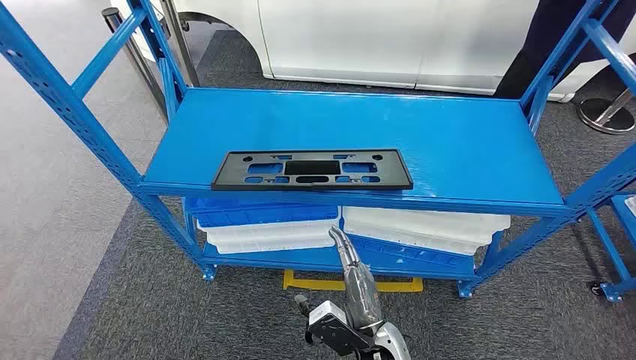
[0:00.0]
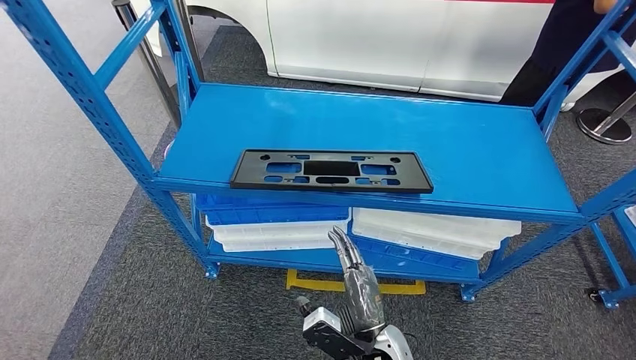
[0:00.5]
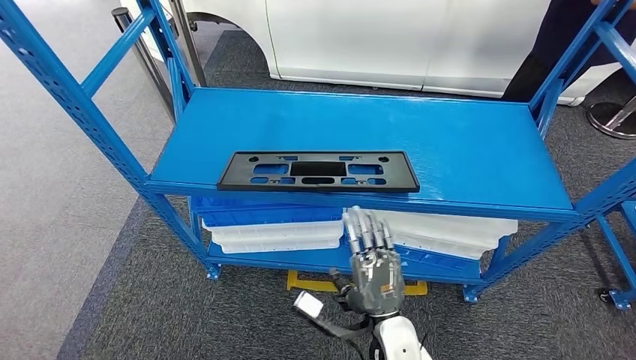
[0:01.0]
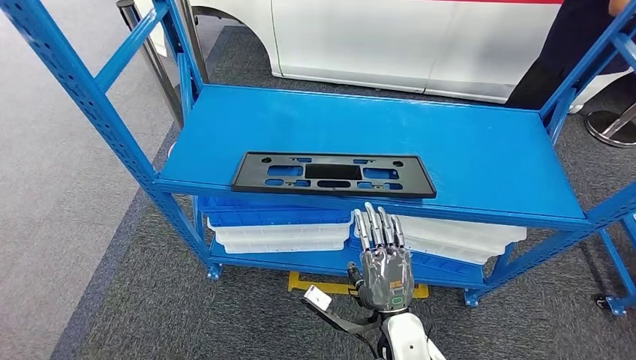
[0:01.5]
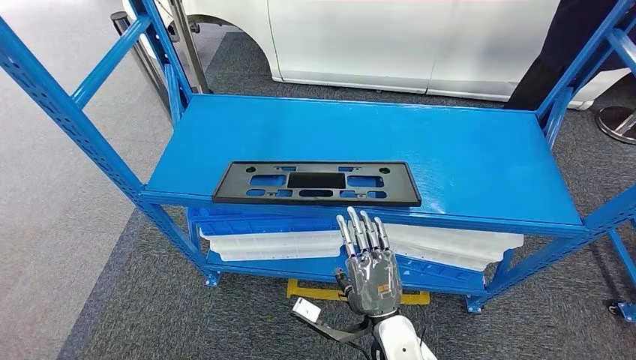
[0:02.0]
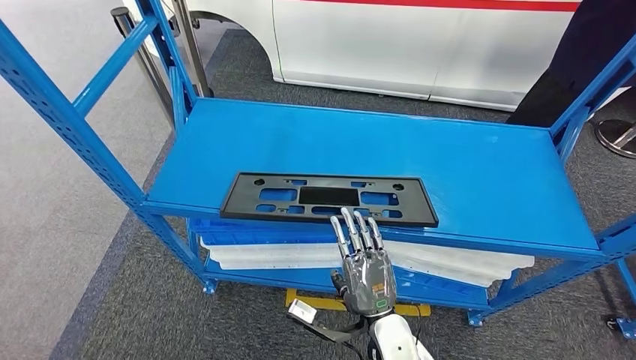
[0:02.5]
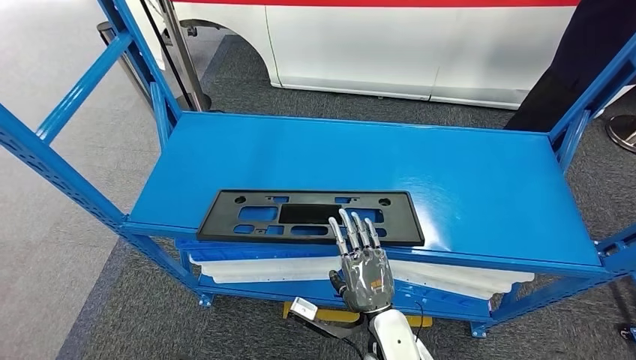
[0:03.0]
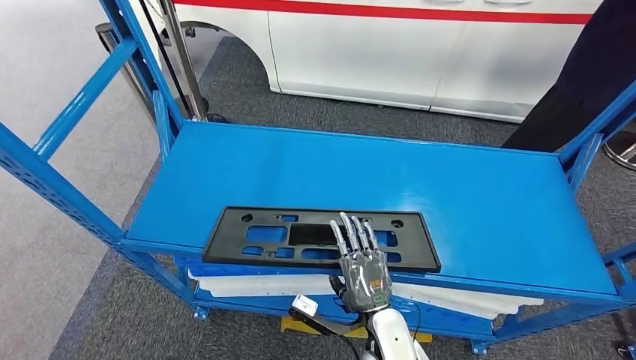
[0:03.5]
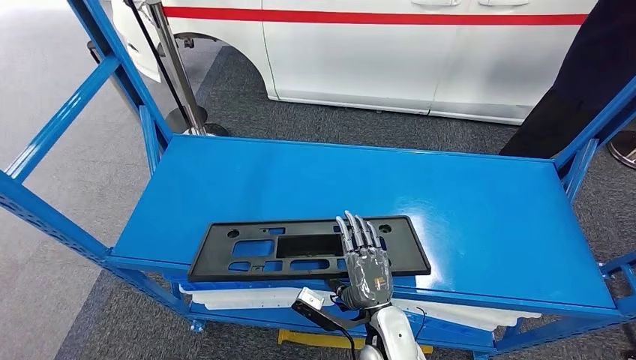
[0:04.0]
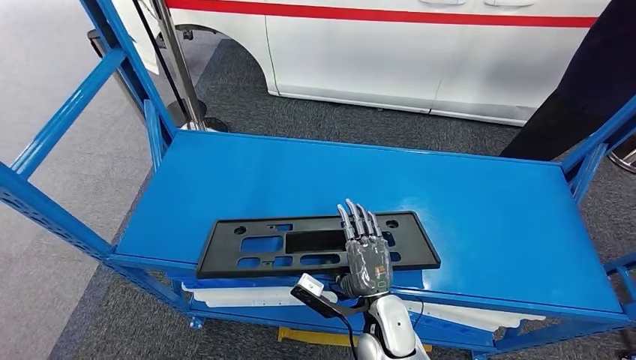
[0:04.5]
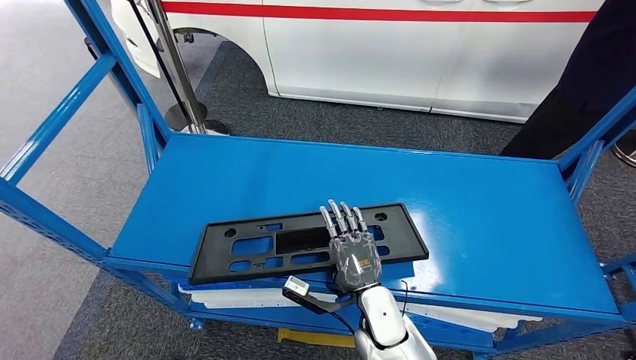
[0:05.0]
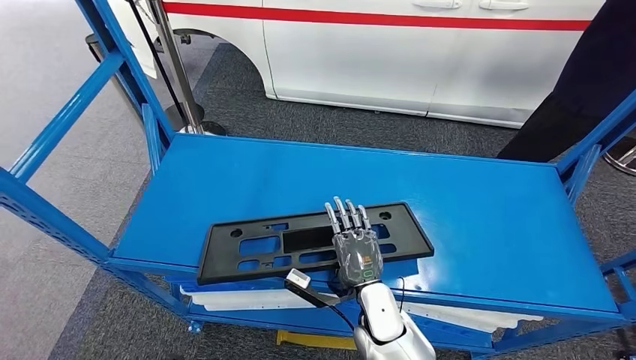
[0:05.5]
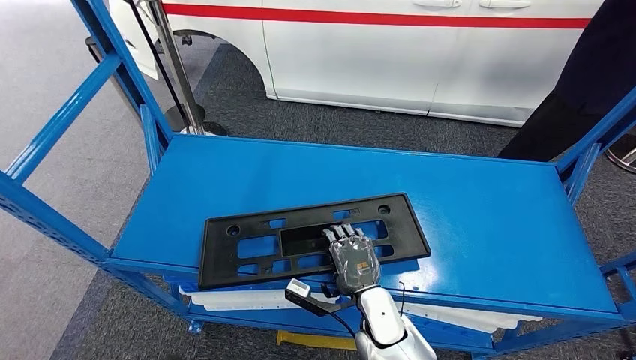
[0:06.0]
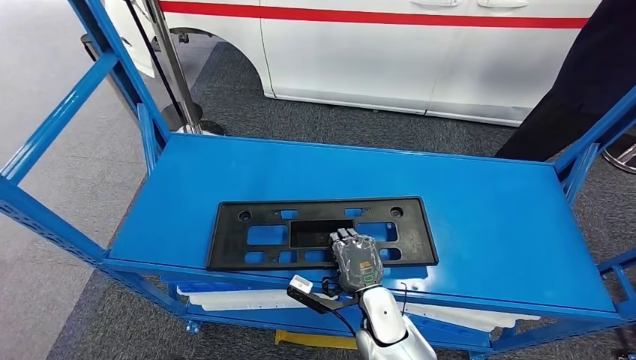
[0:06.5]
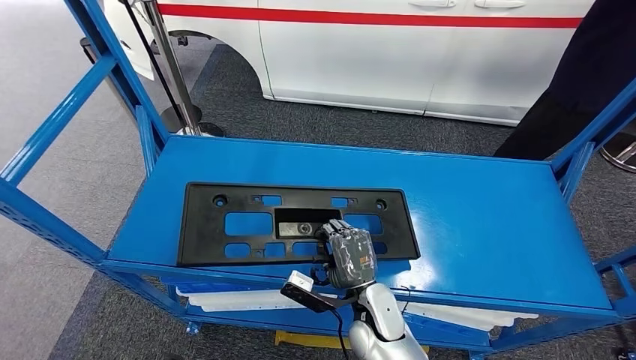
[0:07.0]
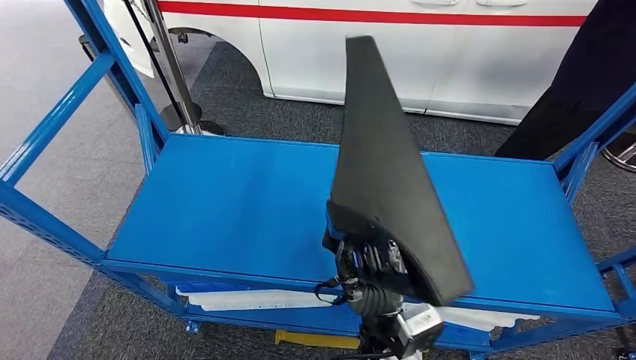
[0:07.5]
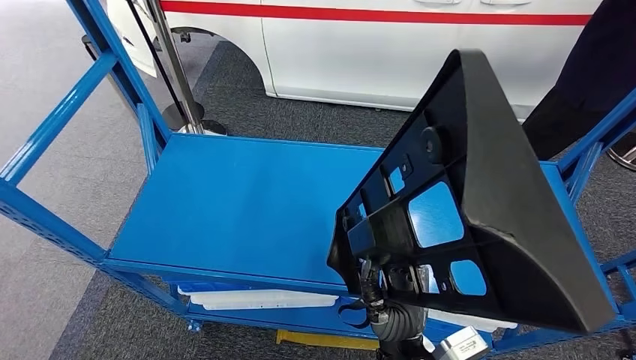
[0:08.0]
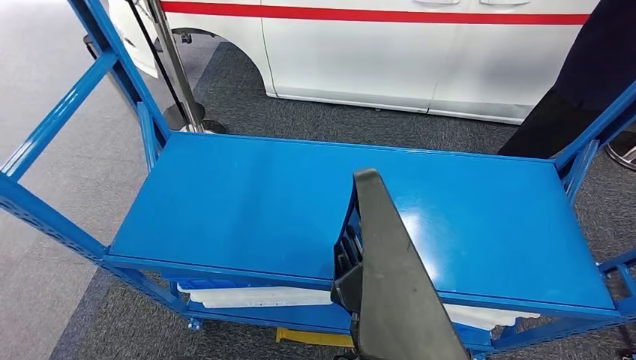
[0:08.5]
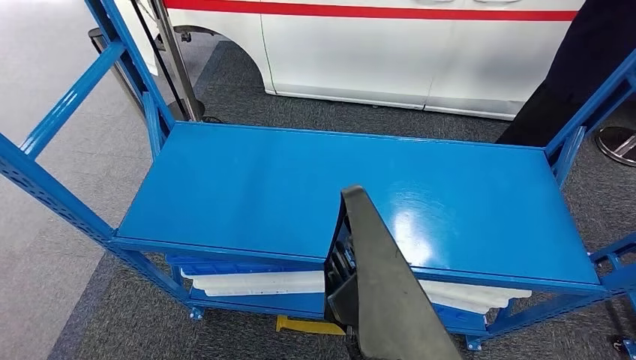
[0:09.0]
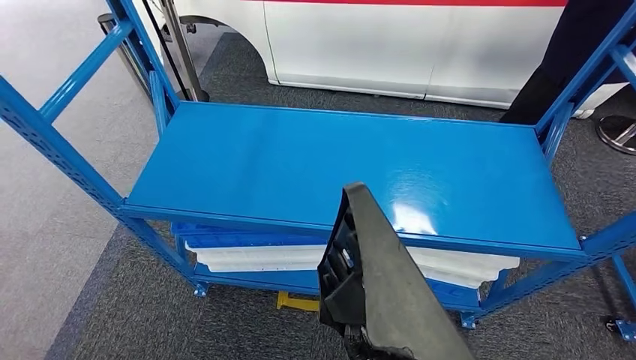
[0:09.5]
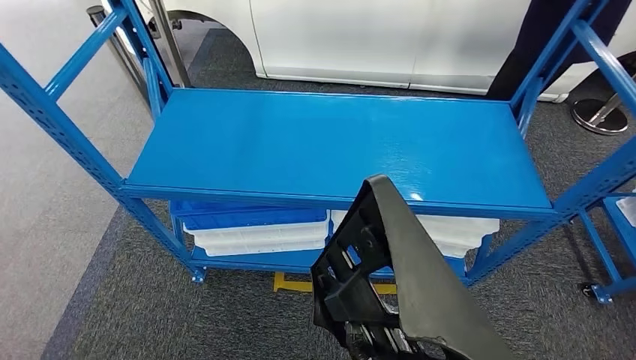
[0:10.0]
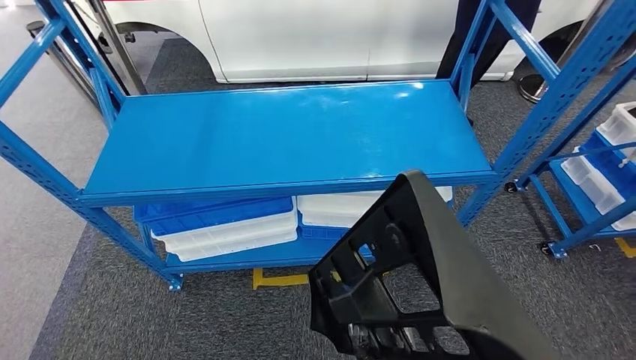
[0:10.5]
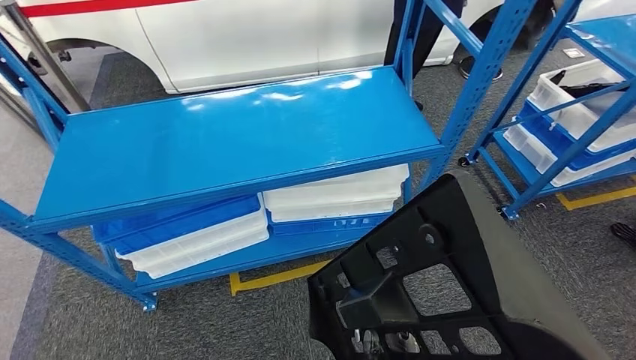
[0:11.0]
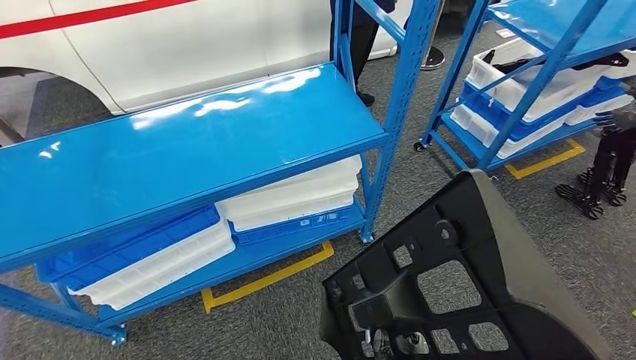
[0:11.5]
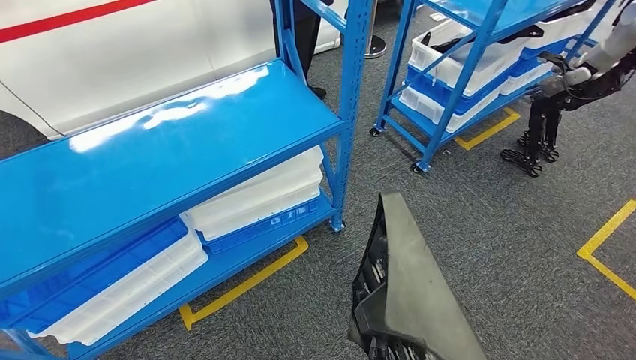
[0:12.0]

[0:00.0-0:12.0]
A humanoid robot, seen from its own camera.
Step, 0:00.0 to 0:07.5: Pick up the large material from the shelf.
0:04.0 to 0:06.0: The hands stay close to where they were, moving slightly.

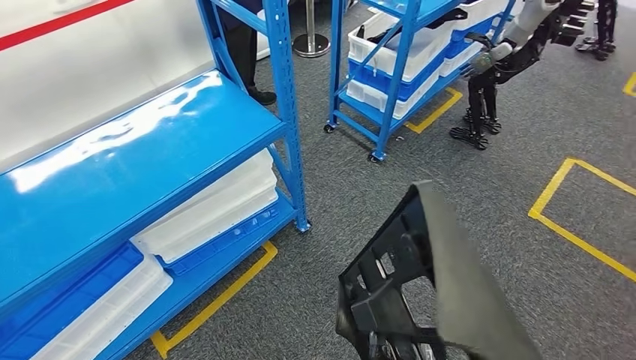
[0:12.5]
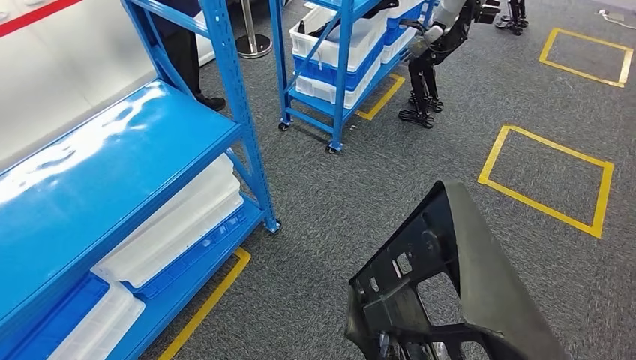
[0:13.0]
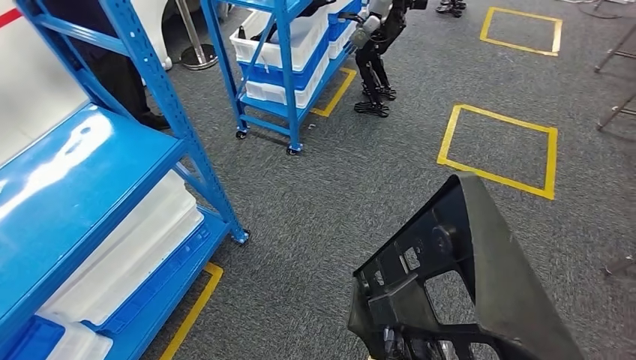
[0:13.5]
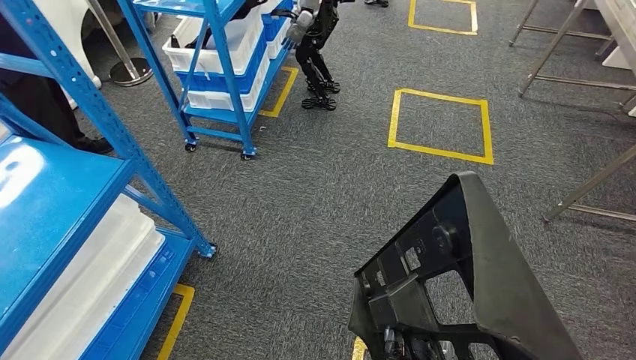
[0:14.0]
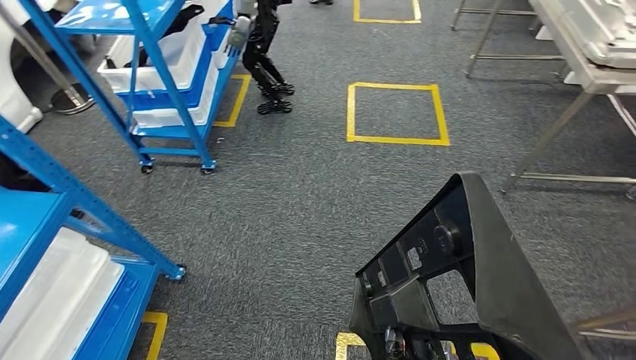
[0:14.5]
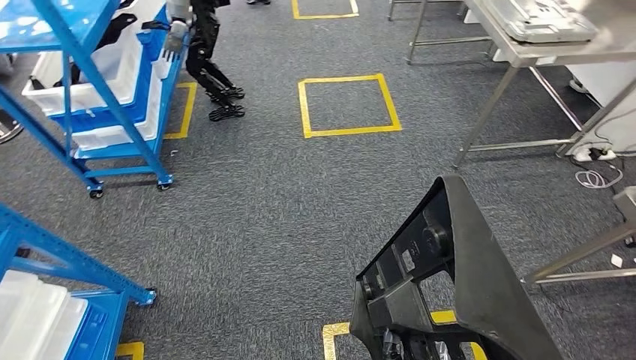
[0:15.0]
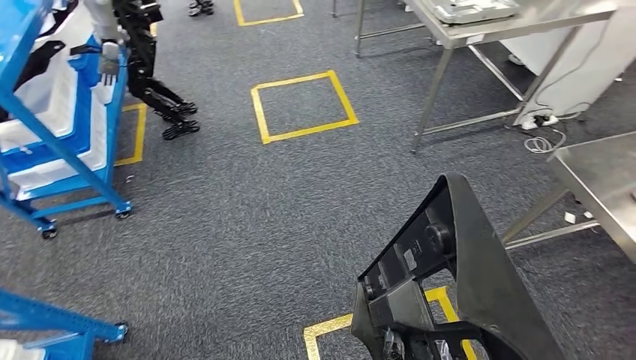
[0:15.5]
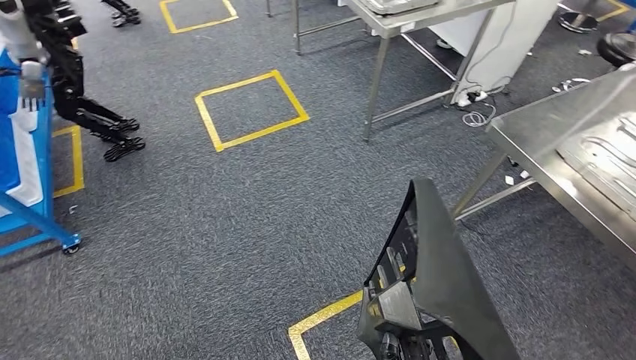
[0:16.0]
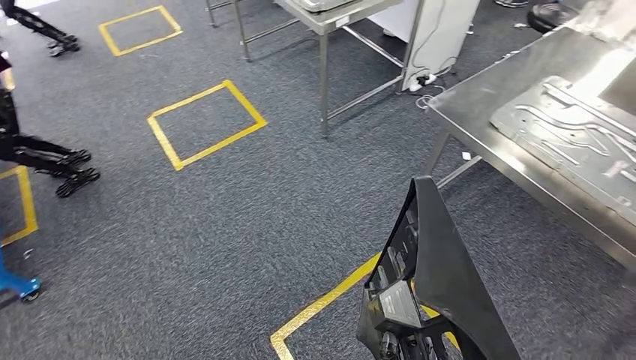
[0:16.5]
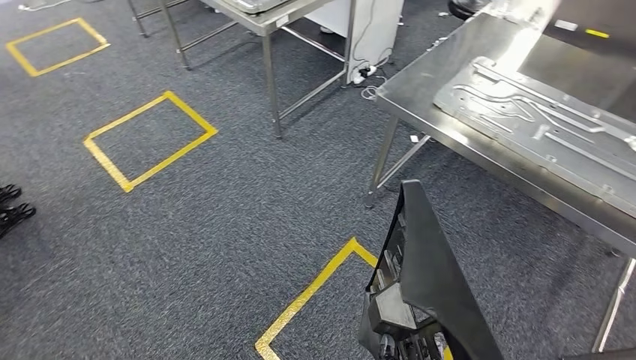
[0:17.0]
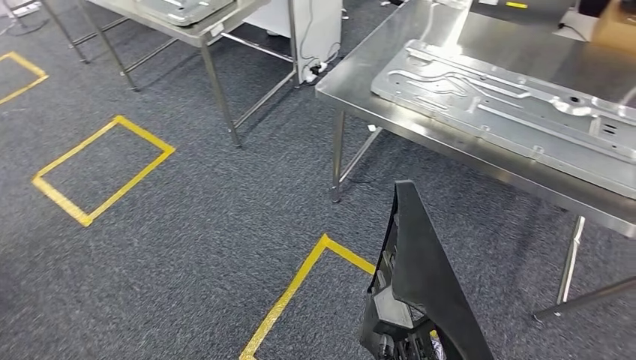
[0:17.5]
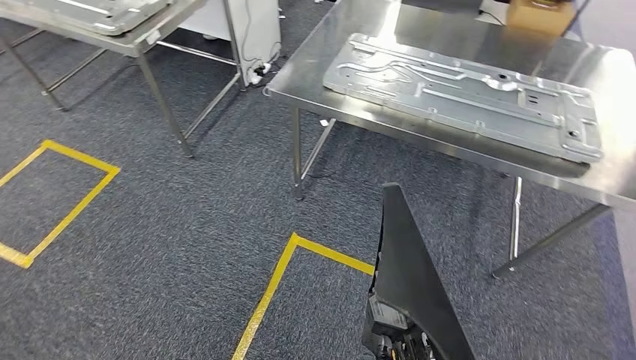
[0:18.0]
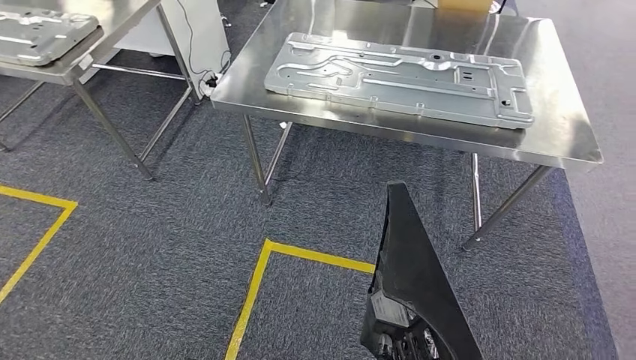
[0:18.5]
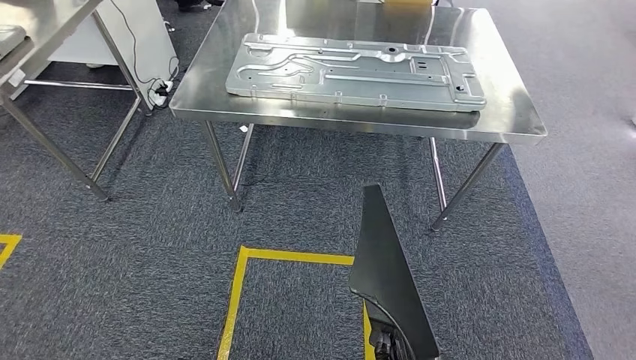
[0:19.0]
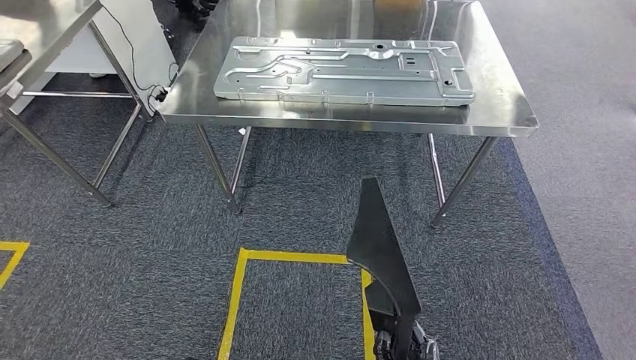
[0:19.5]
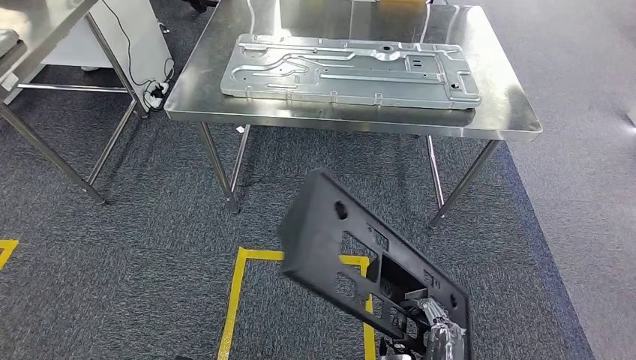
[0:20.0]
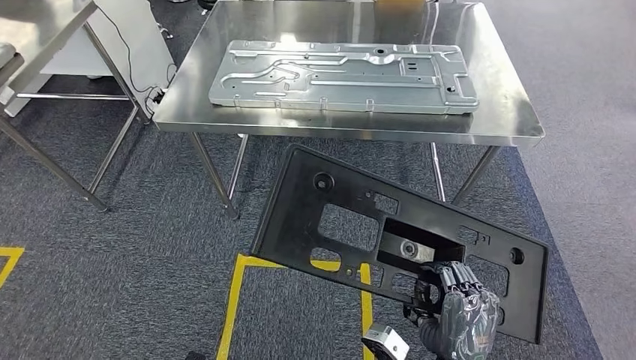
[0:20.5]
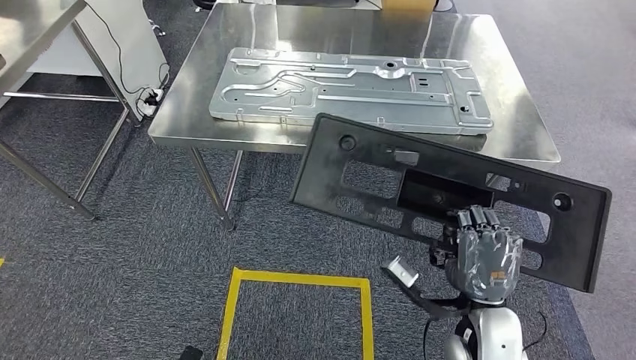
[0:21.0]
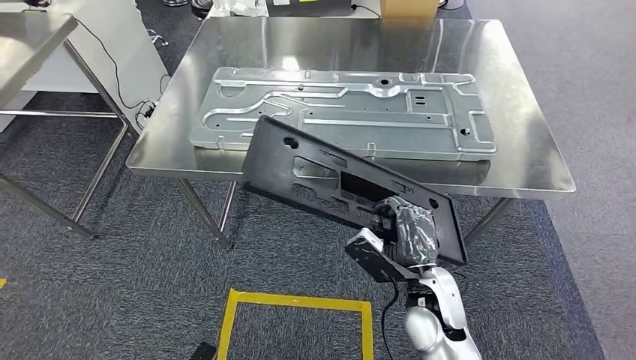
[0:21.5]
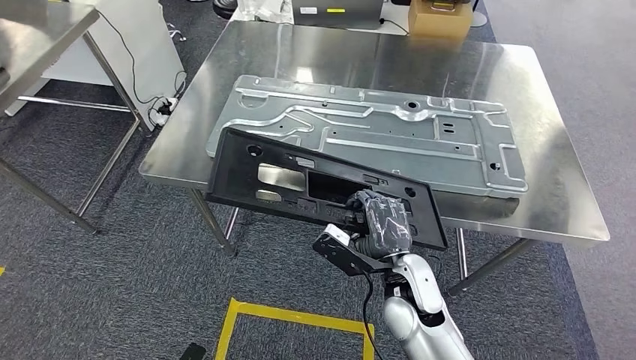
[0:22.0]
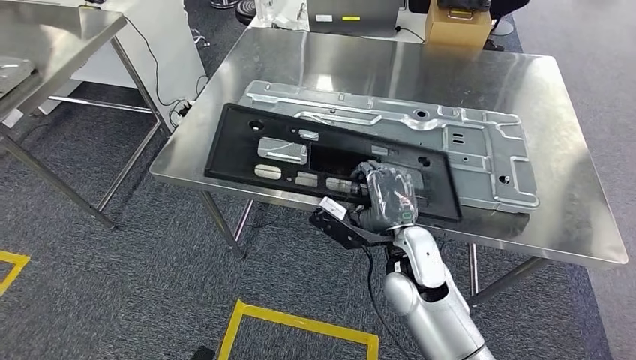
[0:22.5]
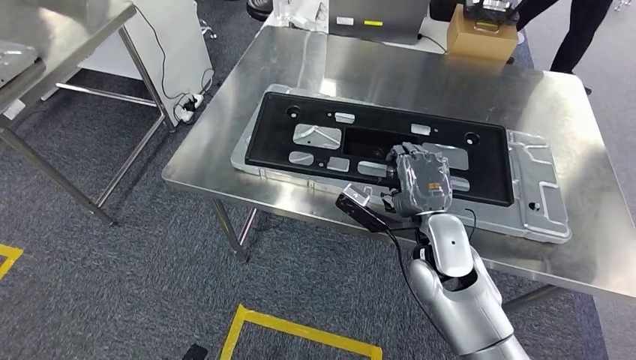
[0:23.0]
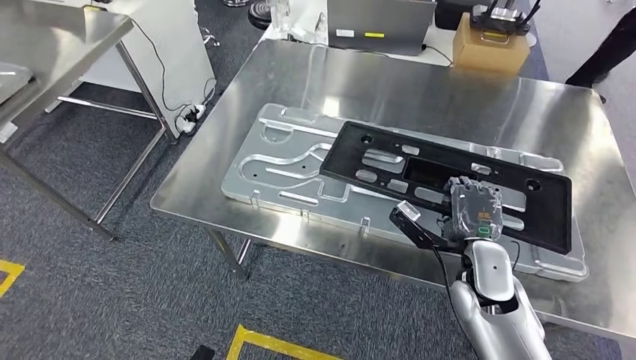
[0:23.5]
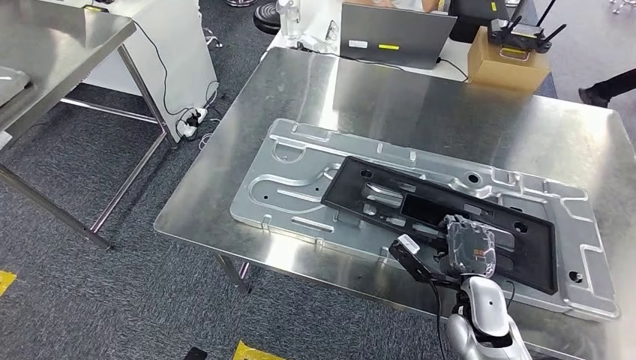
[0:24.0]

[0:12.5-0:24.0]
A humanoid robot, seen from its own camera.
Step, 0:12.5 to 0:21.5: Move the large material to the workbench.
